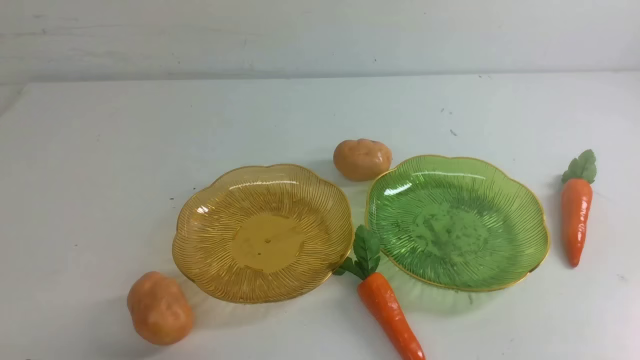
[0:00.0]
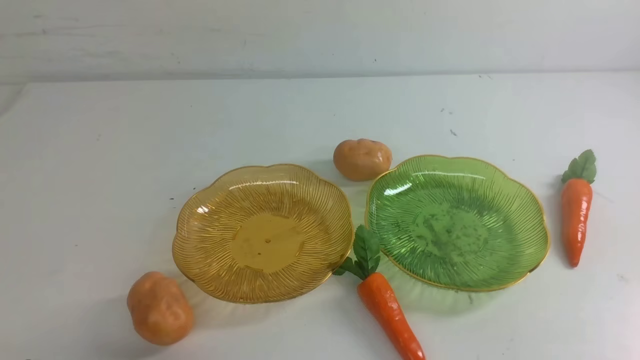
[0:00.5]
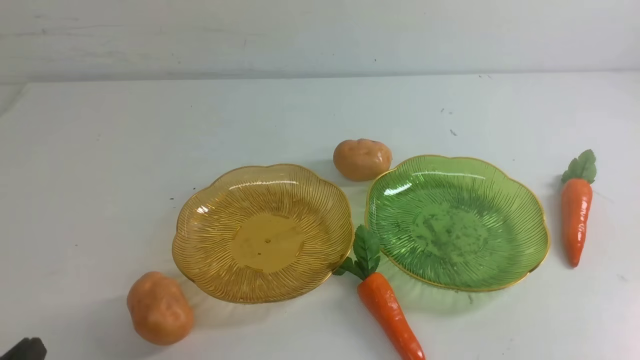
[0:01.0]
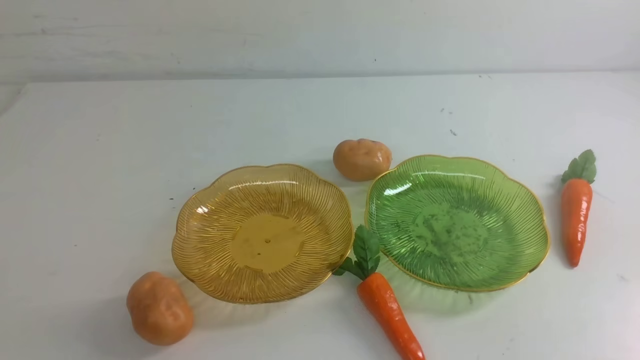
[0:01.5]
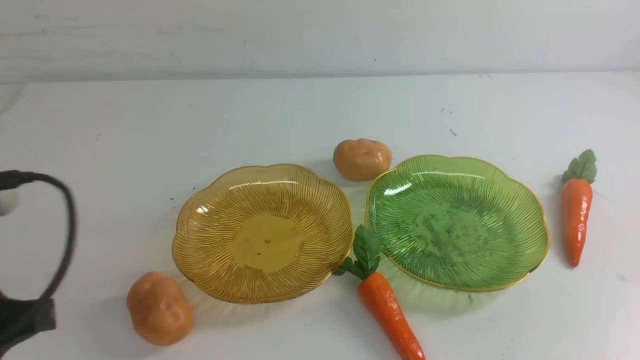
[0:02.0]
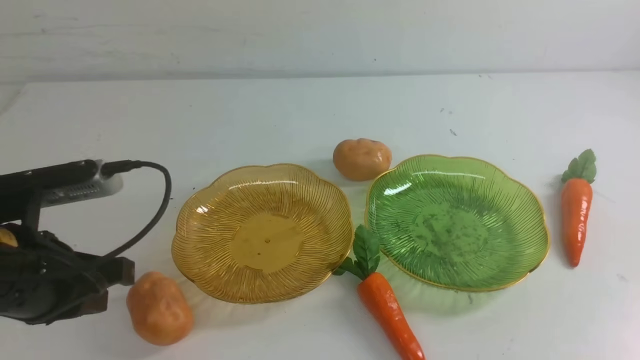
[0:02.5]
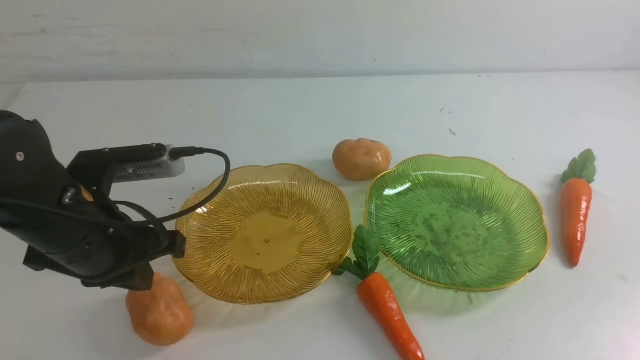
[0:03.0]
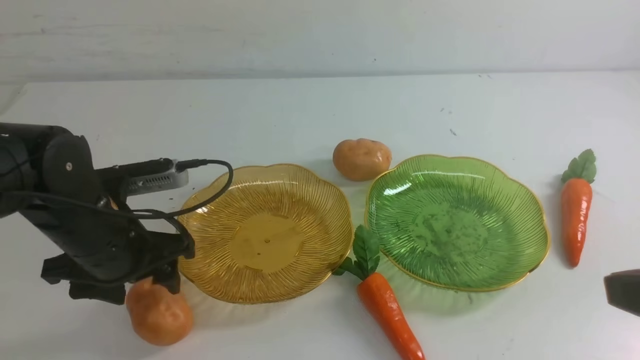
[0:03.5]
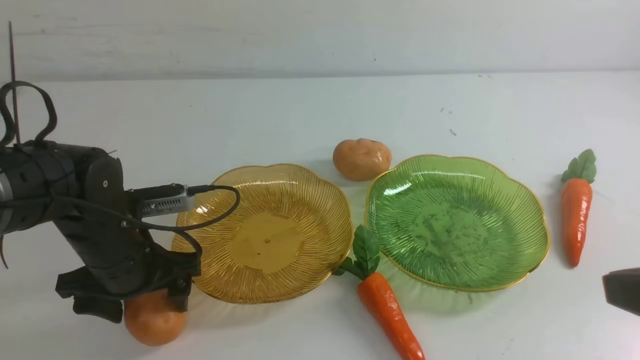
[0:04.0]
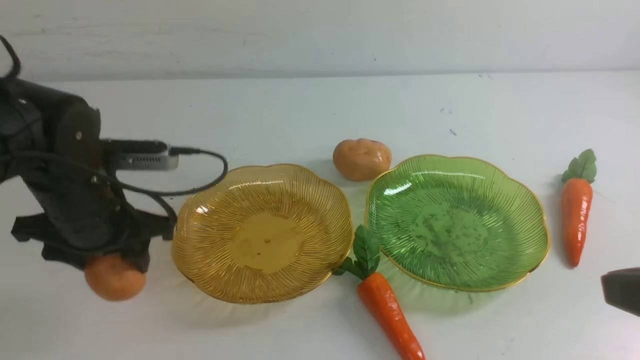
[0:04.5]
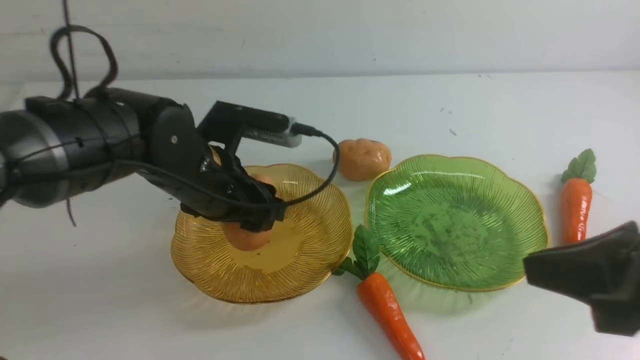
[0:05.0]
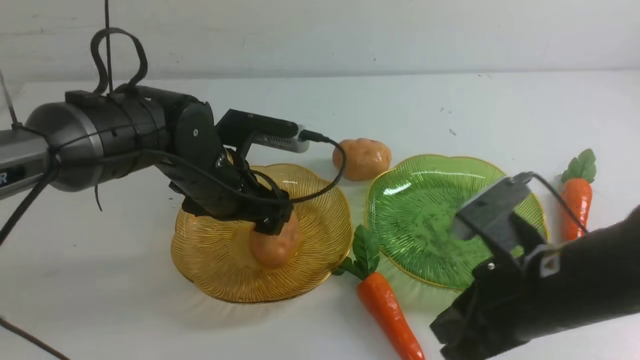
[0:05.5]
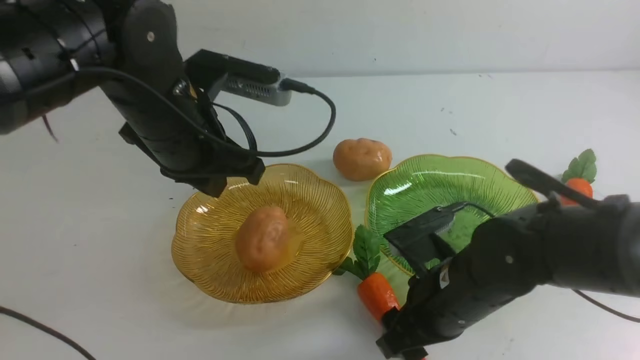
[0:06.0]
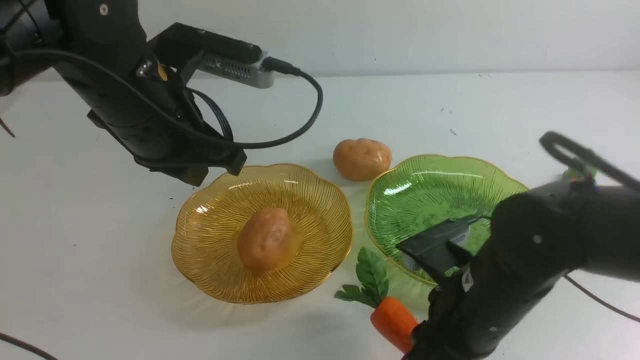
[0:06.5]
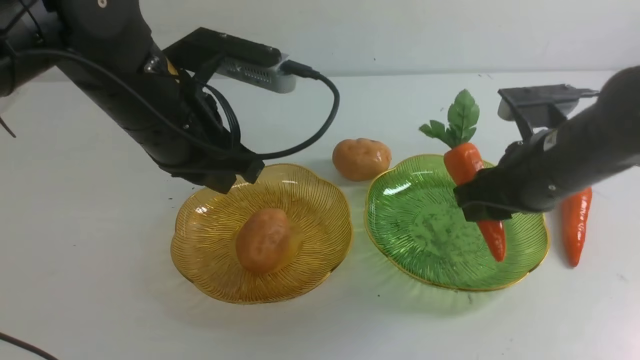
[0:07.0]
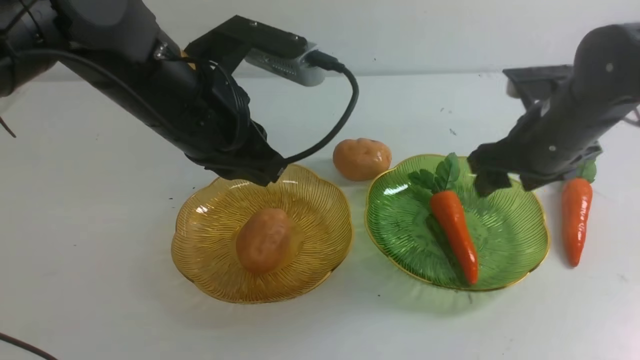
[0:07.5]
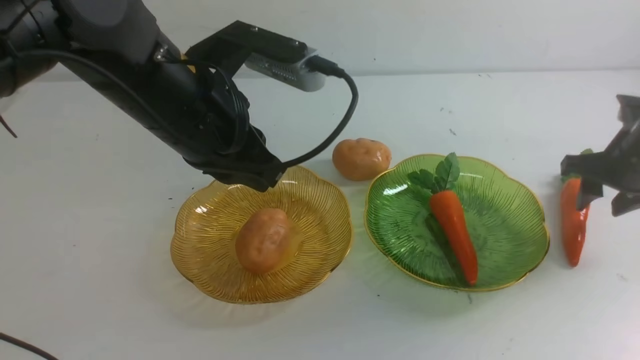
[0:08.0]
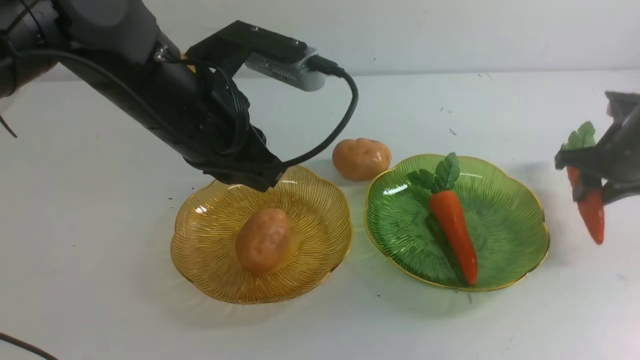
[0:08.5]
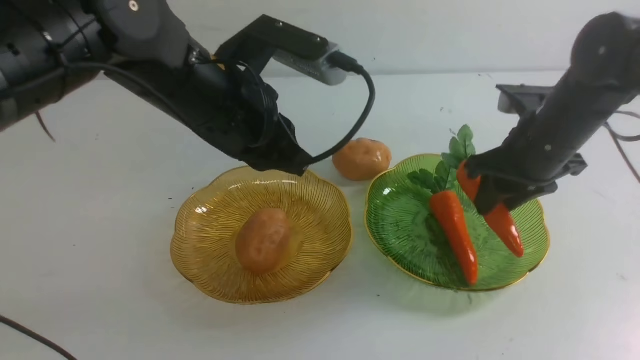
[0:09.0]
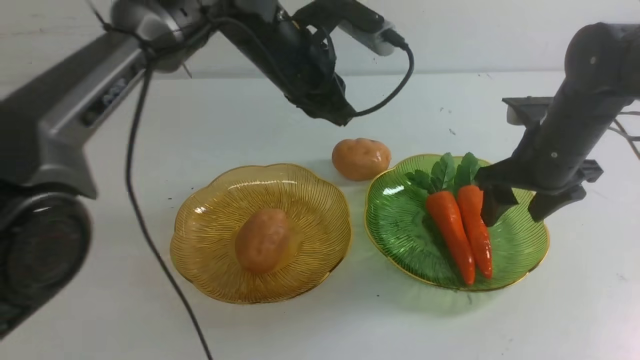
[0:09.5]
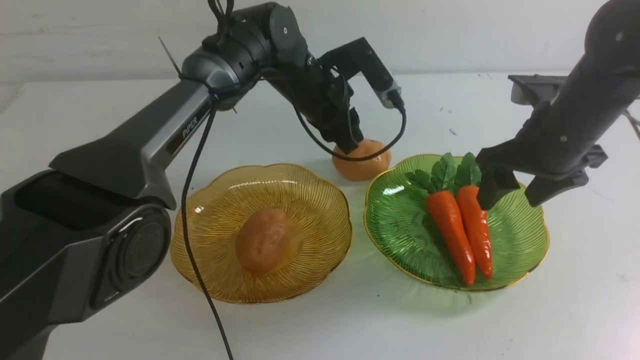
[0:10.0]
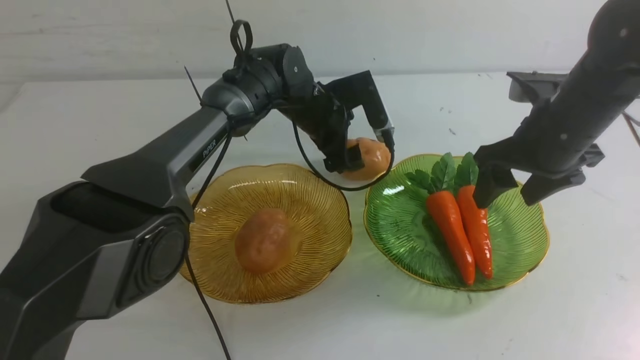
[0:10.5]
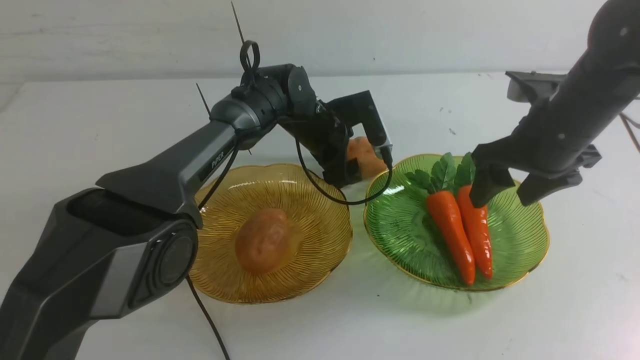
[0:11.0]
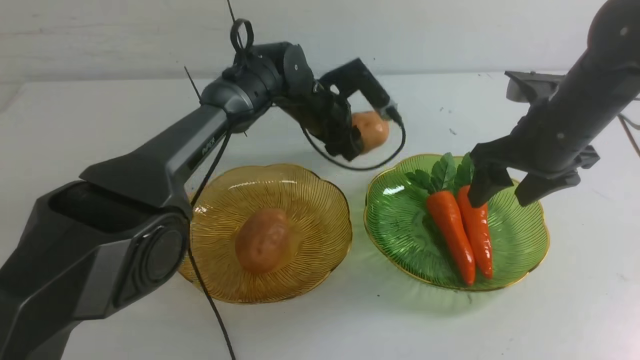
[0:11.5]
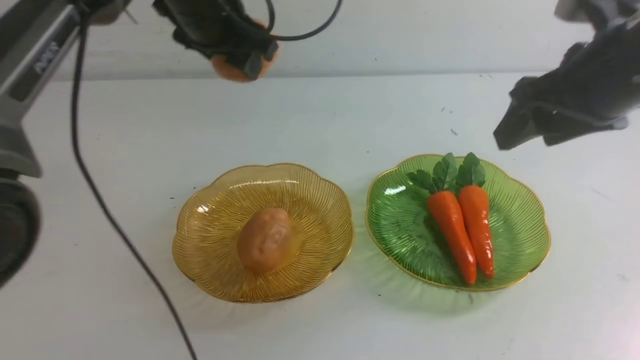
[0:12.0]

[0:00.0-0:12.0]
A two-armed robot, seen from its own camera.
Step, 0:00.0 to 0:05.5: Grab a potato with your left arm and put it on the left plate.
Step, 0:06.0 to 0:09.0: use the right arm to grab a carrot and put it into the right plate.
0:00.0 to 0:02.0: The left gripper heads upward and forward, covering approximately 15 cm.
0:02.0 to 0:04.0: The right gripper travels upward, to the left and forward by roughly 15 cm; the left gripper moves forward and downward, approximately 20 cm, and opens.
0:04.0 to 0:06.0: The right gripper goes some 25 cm downward, to the left and forward, and opens its fingers. Meanwhile the left gripper is displaced upward and to the right by roughly 15 cm, and closes up.
0:06.0 to 0:08.0: The right gripper heads to the right and forward, covering approximately 25 cm; the left gripper ends up about 5 cm from where it was.
0:08.0 to 0:10.0: The left gripper moves forward, downward and to the right, some 25 cm. The right gripper travels to the left and upward by approximately 15 cm.
0:10.0 to 0:12.0: The left gripper travels to the left, backward and upward by some 15 cm, and opens and closes again; the right gripper travels upward and backward by approximately 20 cm.

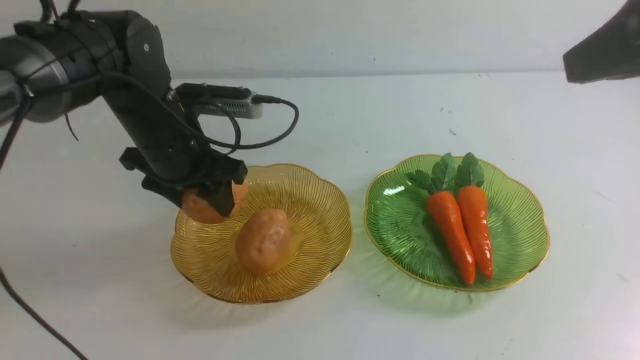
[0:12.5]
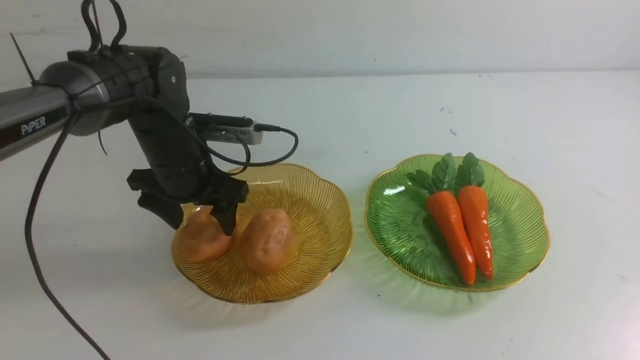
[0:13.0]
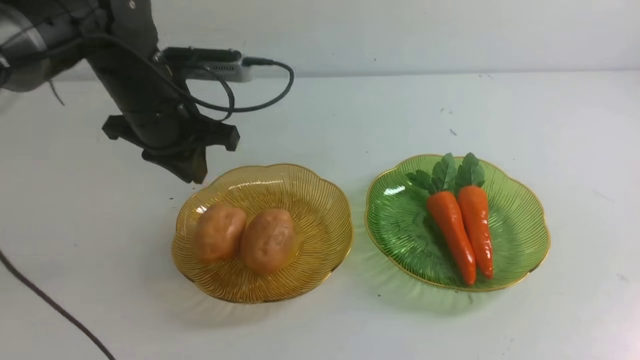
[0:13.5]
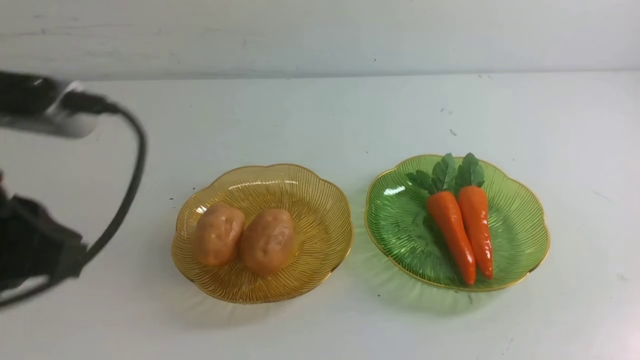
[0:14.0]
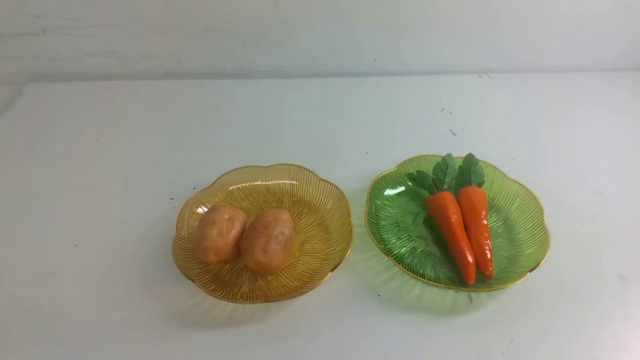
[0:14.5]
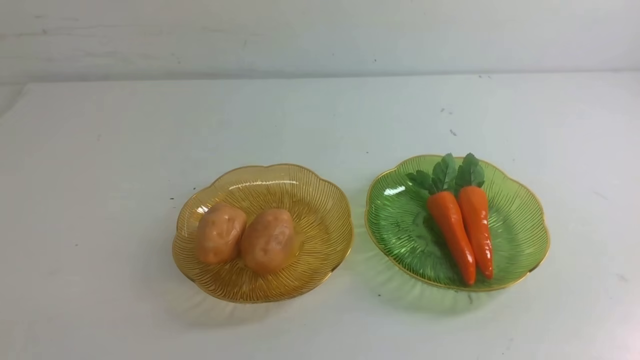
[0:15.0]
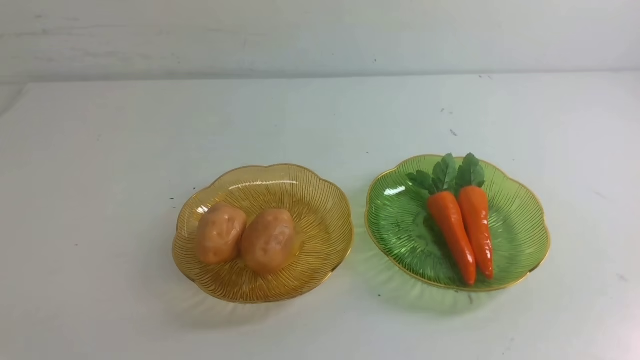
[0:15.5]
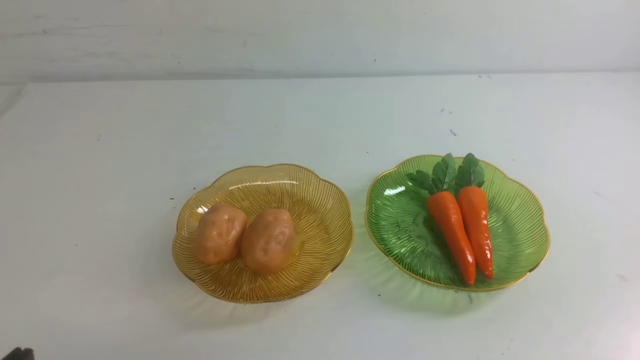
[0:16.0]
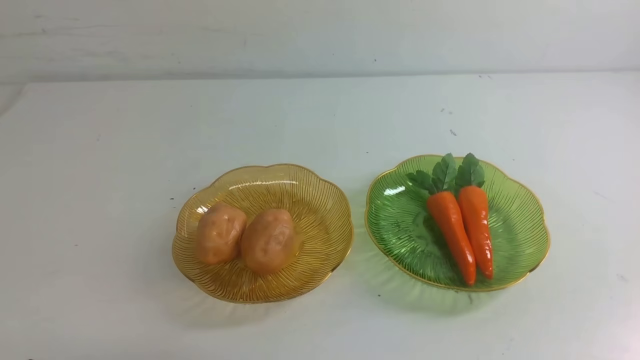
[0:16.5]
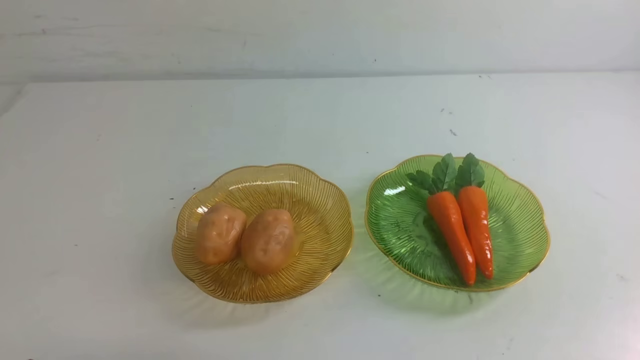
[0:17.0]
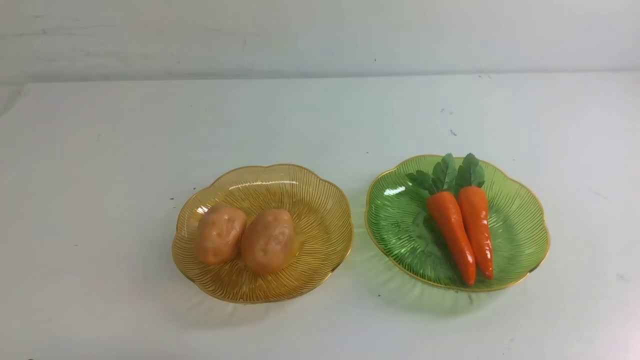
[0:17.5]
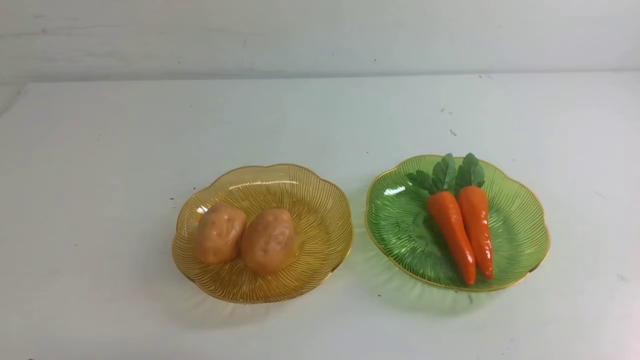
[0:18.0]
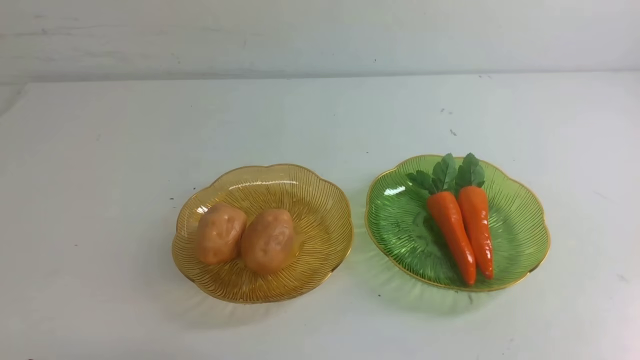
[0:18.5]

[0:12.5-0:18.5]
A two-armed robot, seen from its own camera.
0:12.5 to 0:14.5: The left gripper shifts some 40 cm backward, and closes up, while the right gripper goes approximately 20 cm downward and backward, and closes up.
